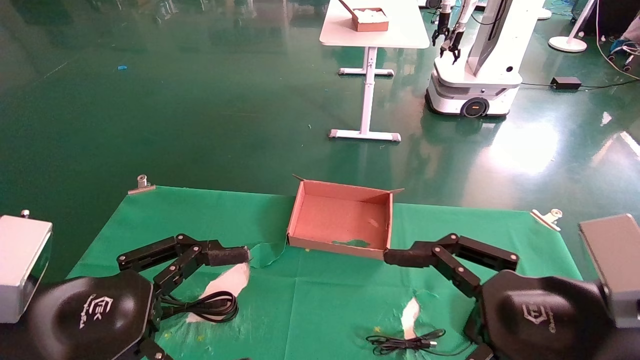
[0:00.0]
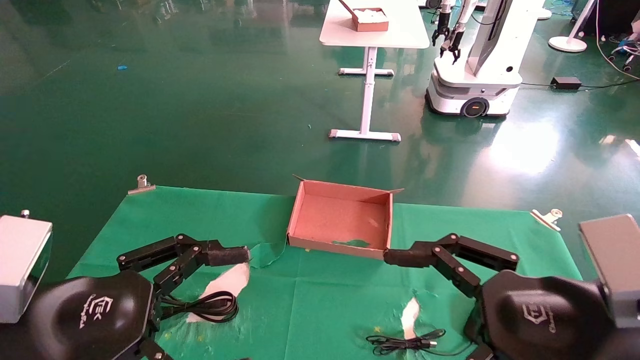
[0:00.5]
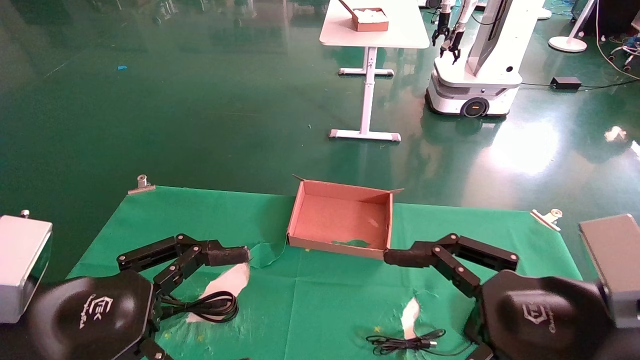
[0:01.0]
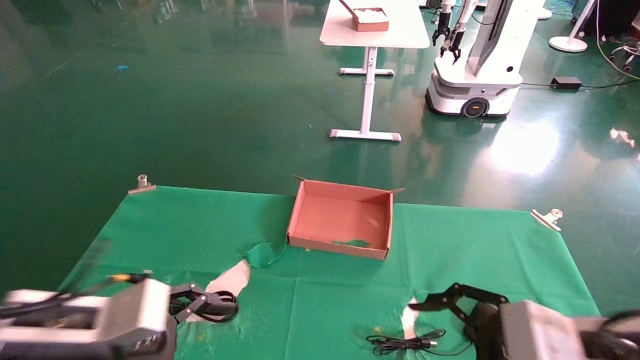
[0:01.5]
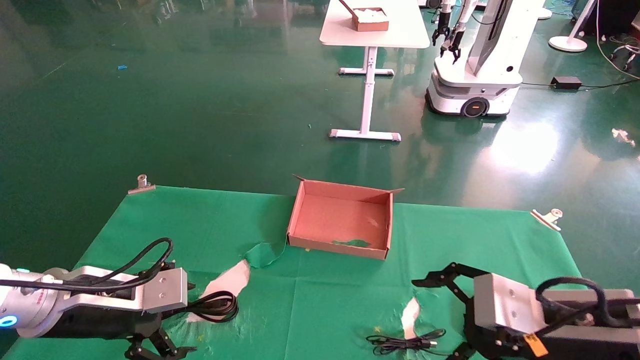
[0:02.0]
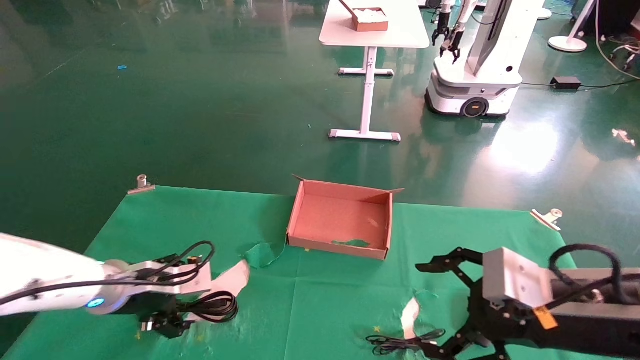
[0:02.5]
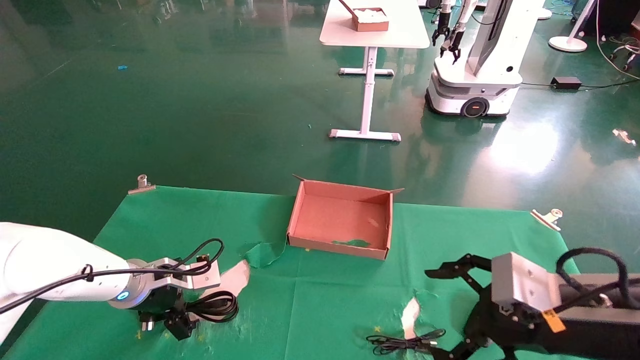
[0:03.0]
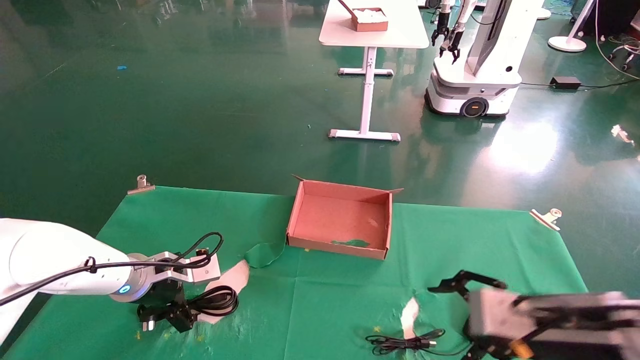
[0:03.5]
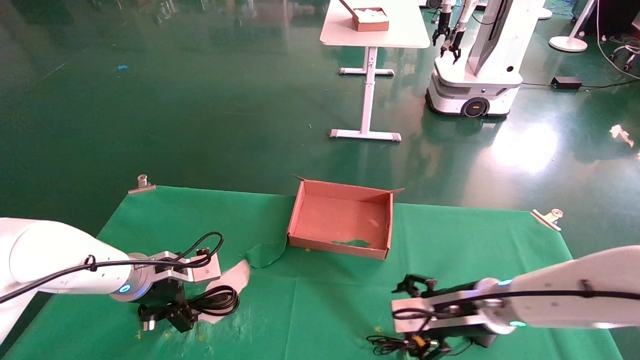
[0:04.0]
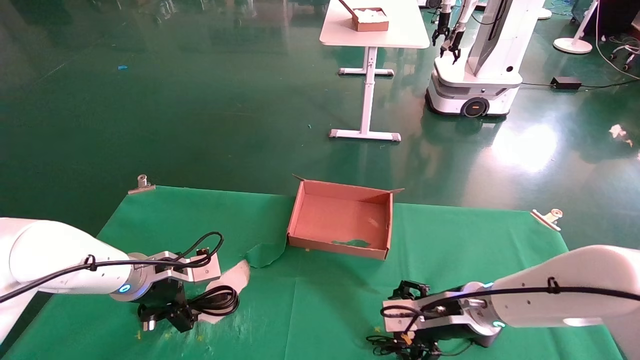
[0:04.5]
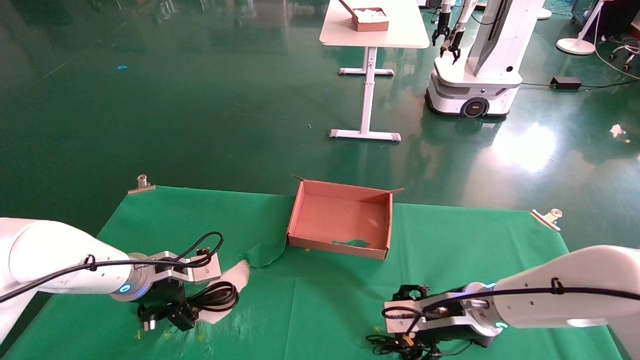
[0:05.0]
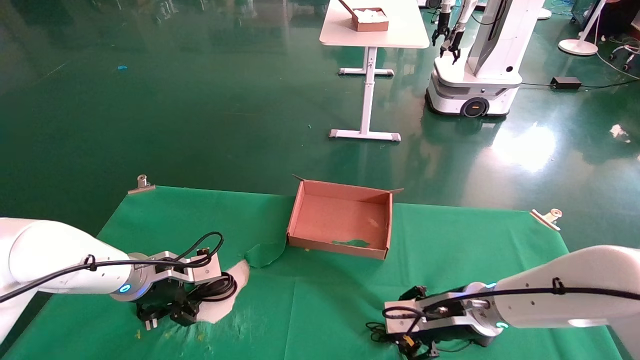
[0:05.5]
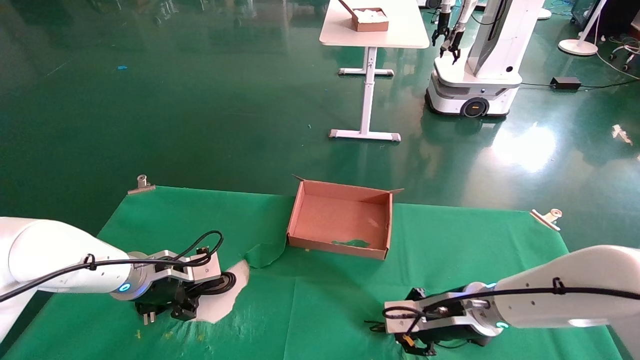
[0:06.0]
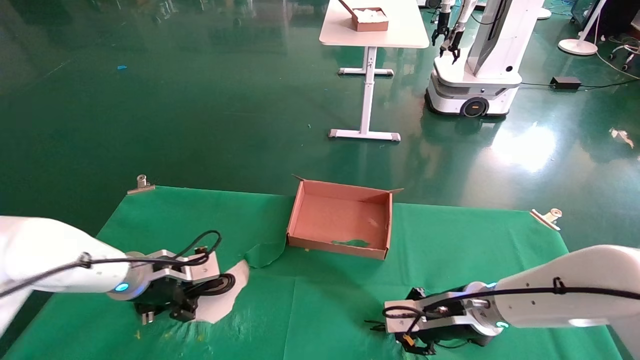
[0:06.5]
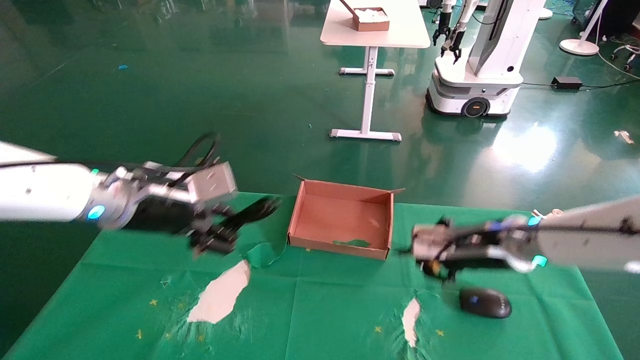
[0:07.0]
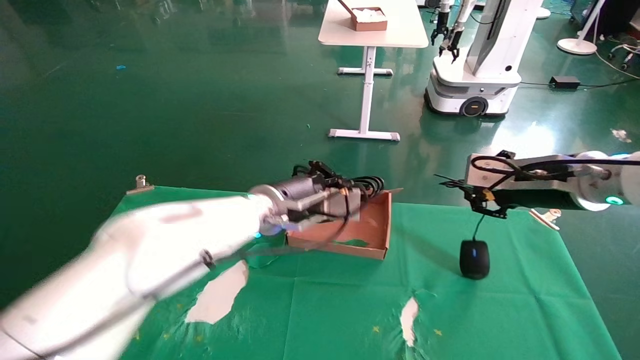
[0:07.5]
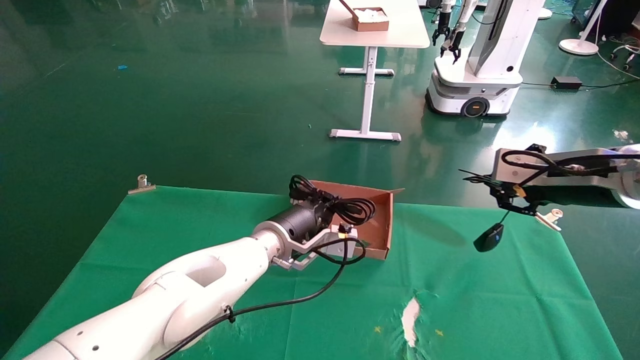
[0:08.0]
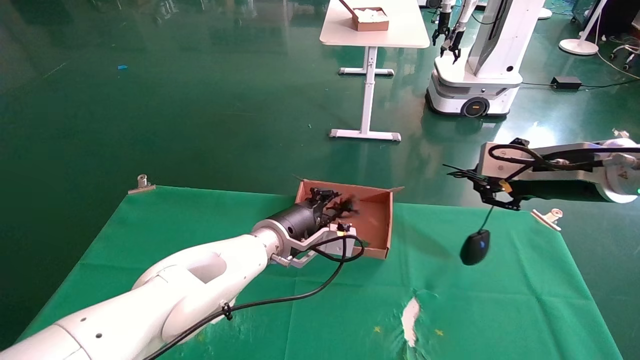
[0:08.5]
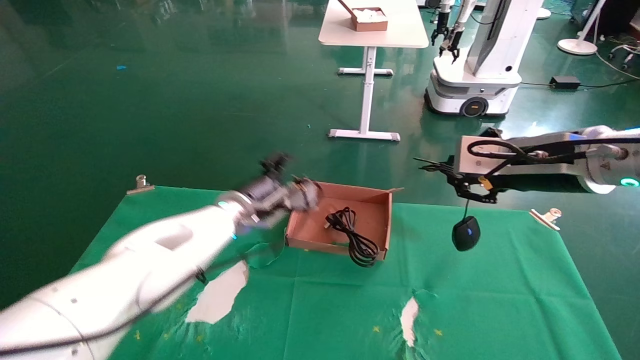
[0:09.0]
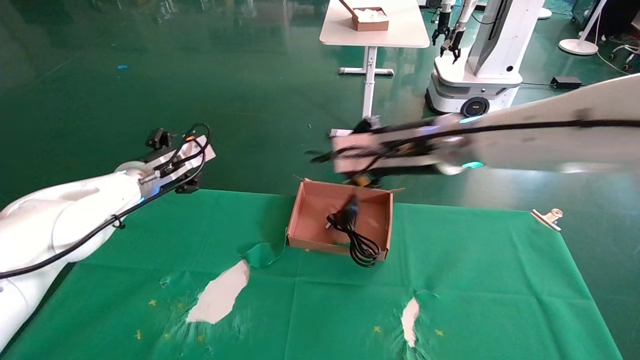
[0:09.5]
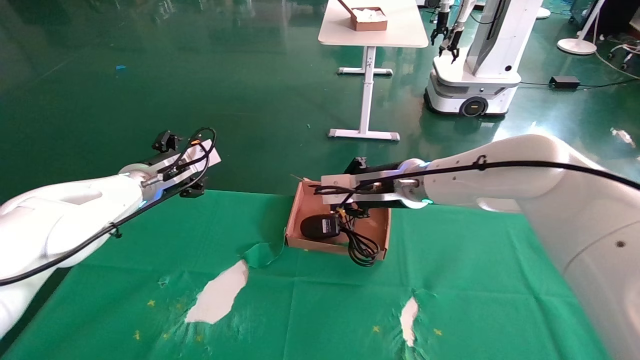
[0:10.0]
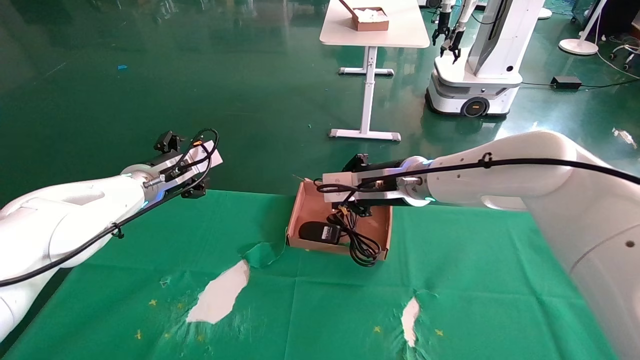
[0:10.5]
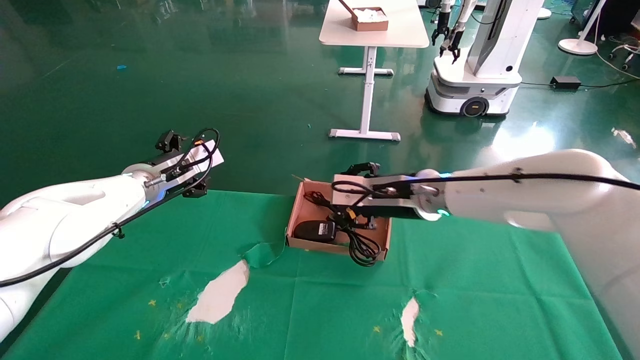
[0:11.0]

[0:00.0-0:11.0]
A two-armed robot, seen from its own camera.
Step, 0:01.5 to 0:06.0: Grab and lift both the mouse and power cord from the accessory packaging area at the same time.
0:00.0 to 0:02.0: The left gripper travels forward by about 10 cm. The right gripper goes roughly 5 cm forward.
0:02.0 to 0:03.5: The left gripper moves forward, some 10 cm.
0:03.5 to 0:05.5: The right gripper travels forward, to the left and downward by about 15 cm, and closes up. Meanwhile the left gripper closes its fingers.
0:05.5 to 0:07.5: The right gripper heads upward and to the right, covering about 20 cm, and closes, while the left gripper heads to the right and upward, covering roughly 20 cm, and closes.
0:07.5 to 0:09.0: The right gripper ends up approximately 5 cm from where it was, while the left gripper shifts about 10 cm to the left and forward, and opens.
0:09.0 to 0:11.0: The left gripper moves to the left, roughly 15 cm, and opens its fingers. Meanwhile the right gripper travels to the left, forward and downward by approximately 20 cm, and opens up.

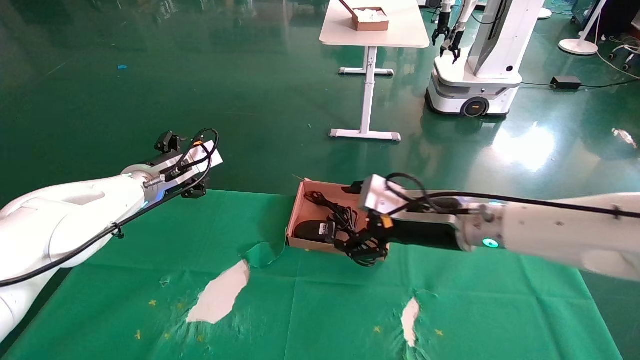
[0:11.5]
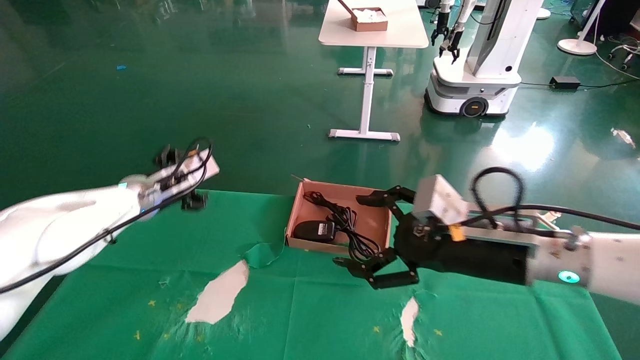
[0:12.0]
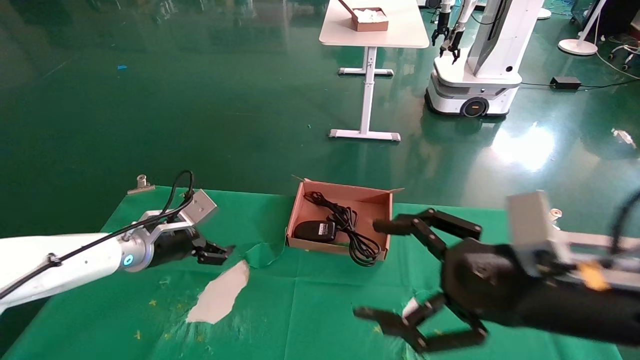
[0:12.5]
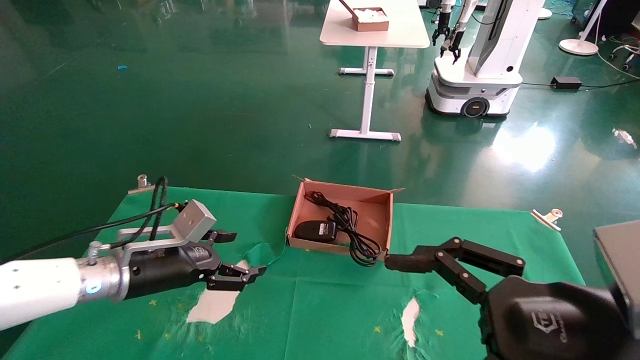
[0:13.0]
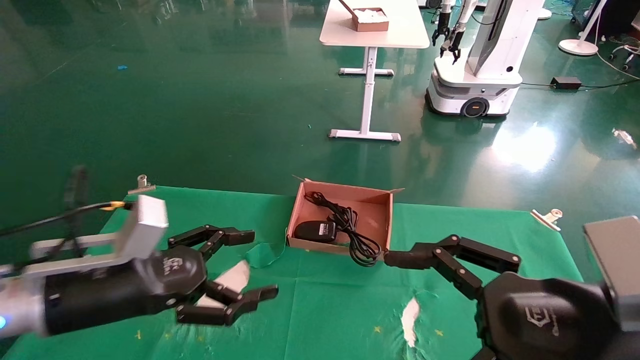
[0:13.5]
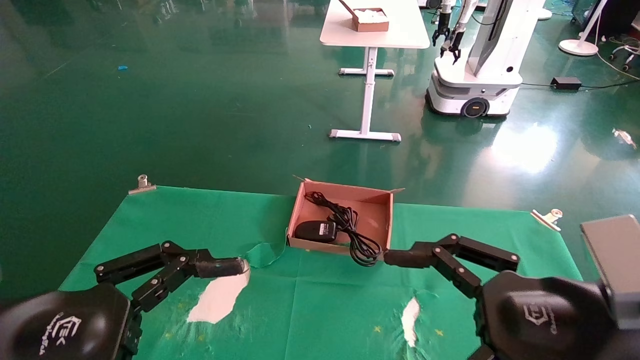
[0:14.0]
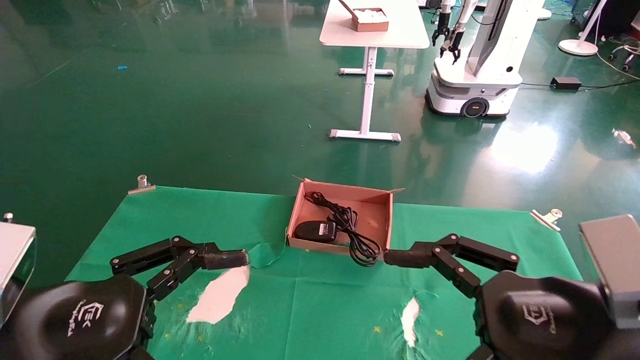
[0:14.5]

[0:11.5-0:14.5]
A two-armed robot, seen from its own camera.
0:11.5 to 0:13.0: The left gripper travels backward and downward by some 15 cm, while the right gripper travels backward by some 20 cm.
0:13.0 to 0:14.5: The left gripper shifts about 20 cm backward.
